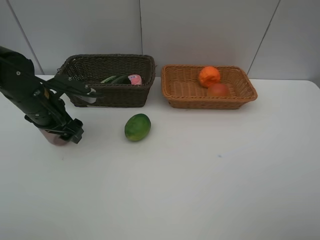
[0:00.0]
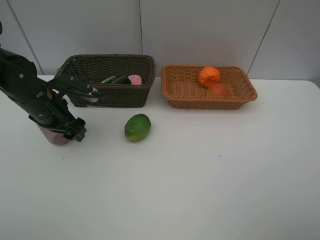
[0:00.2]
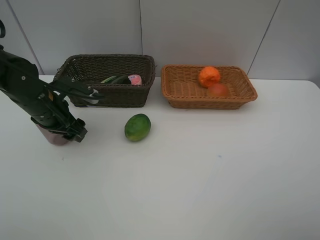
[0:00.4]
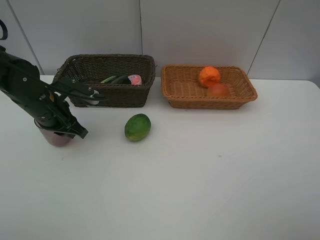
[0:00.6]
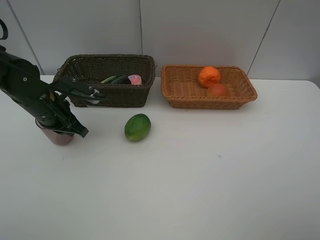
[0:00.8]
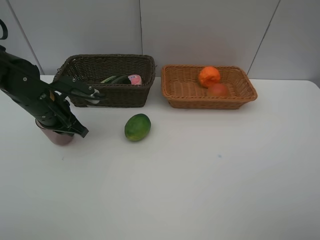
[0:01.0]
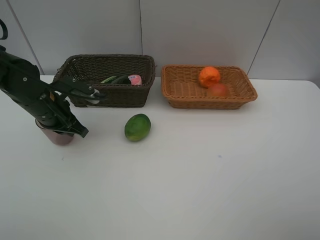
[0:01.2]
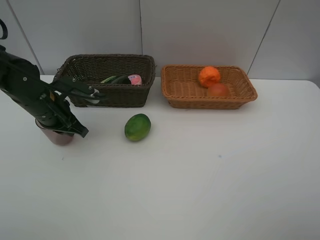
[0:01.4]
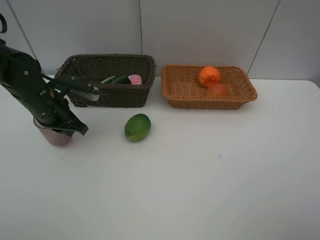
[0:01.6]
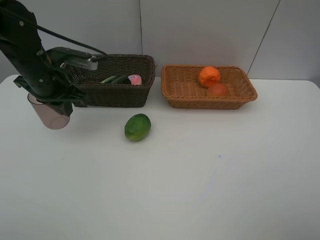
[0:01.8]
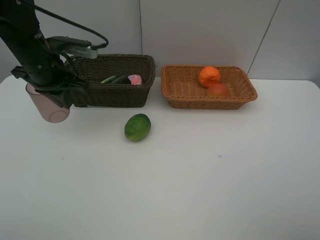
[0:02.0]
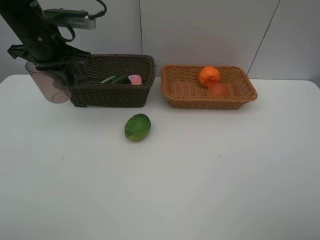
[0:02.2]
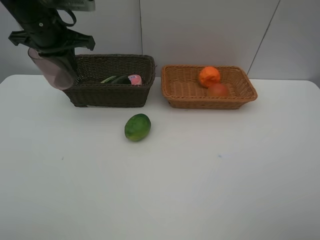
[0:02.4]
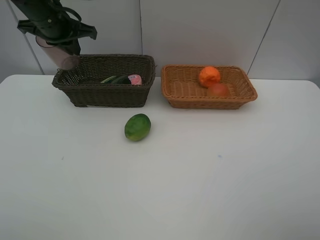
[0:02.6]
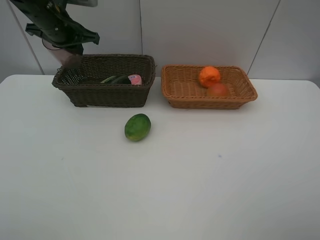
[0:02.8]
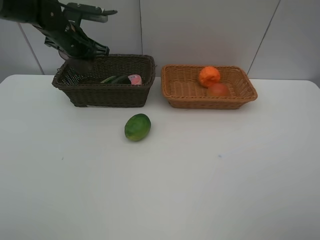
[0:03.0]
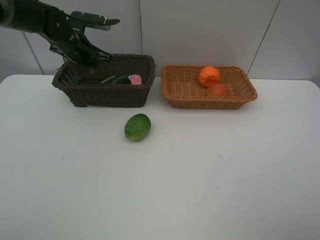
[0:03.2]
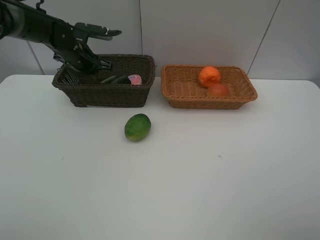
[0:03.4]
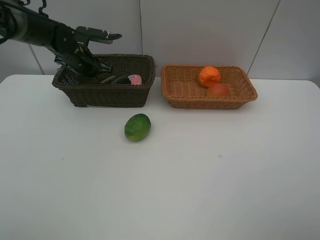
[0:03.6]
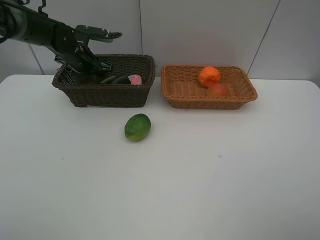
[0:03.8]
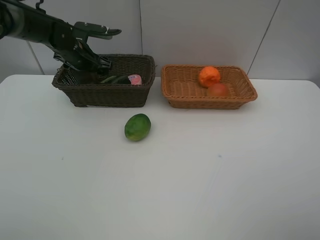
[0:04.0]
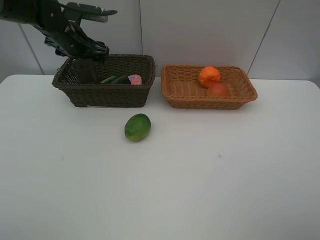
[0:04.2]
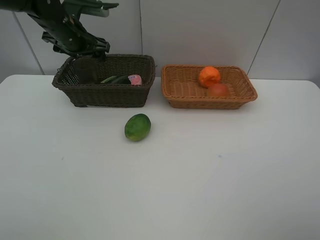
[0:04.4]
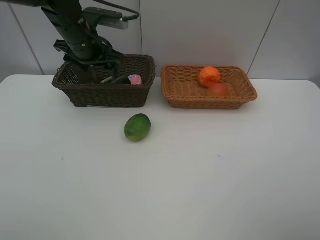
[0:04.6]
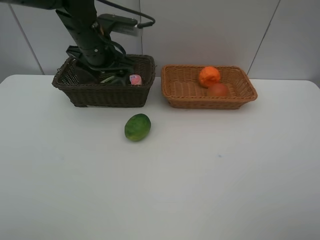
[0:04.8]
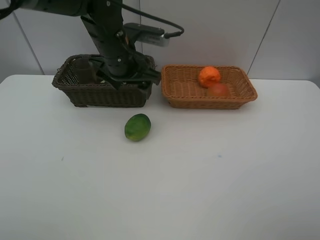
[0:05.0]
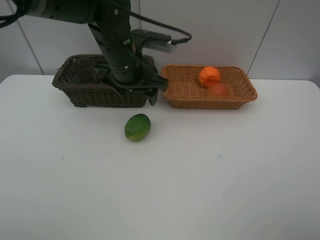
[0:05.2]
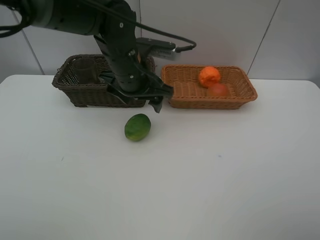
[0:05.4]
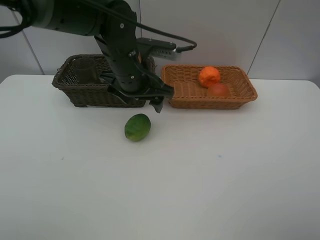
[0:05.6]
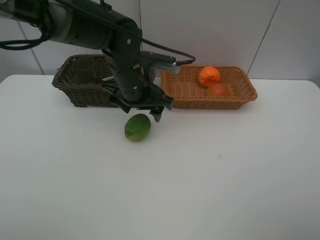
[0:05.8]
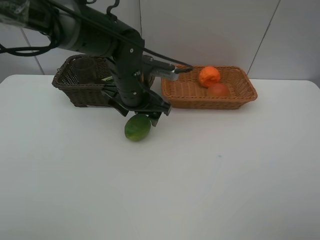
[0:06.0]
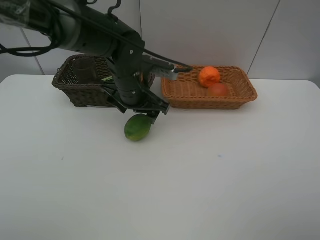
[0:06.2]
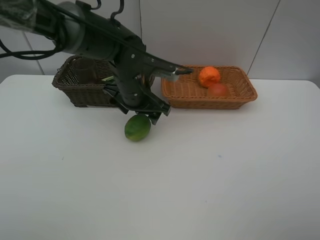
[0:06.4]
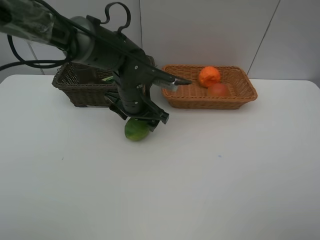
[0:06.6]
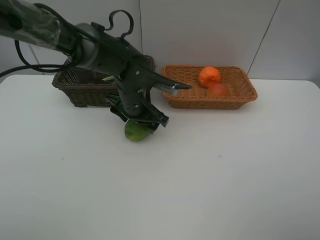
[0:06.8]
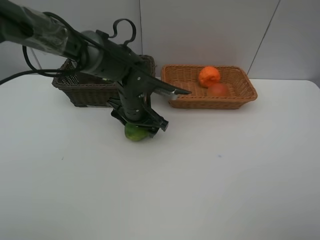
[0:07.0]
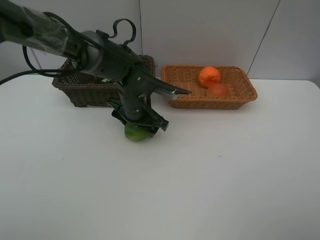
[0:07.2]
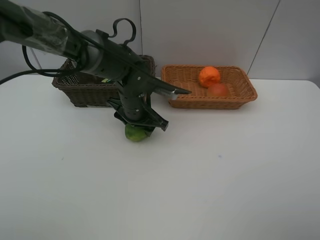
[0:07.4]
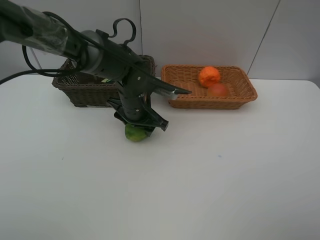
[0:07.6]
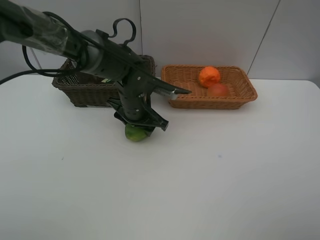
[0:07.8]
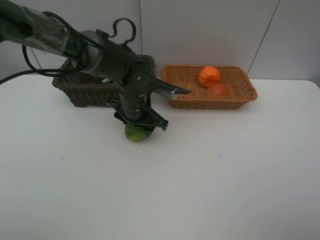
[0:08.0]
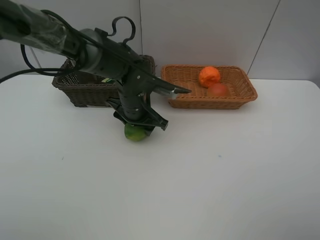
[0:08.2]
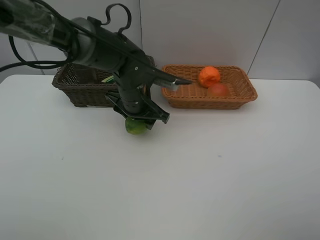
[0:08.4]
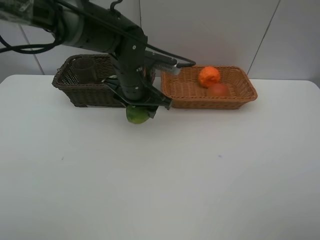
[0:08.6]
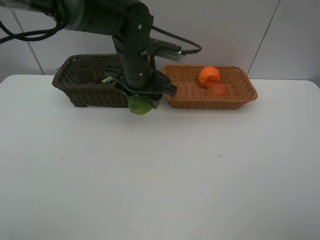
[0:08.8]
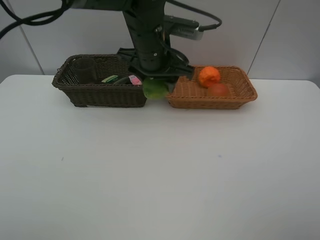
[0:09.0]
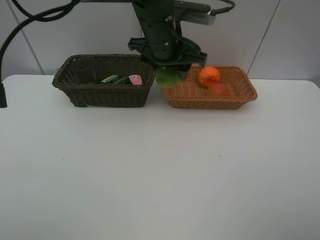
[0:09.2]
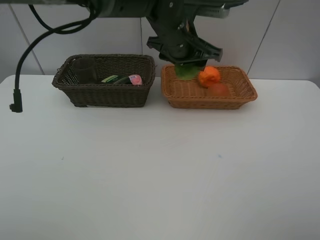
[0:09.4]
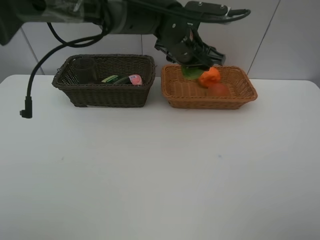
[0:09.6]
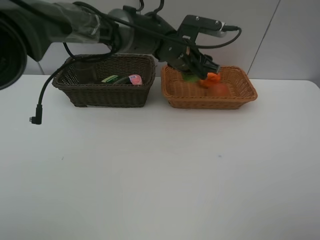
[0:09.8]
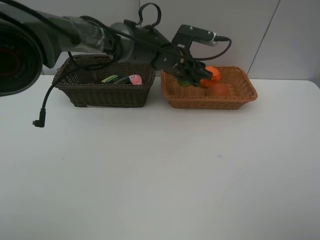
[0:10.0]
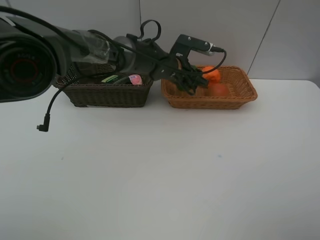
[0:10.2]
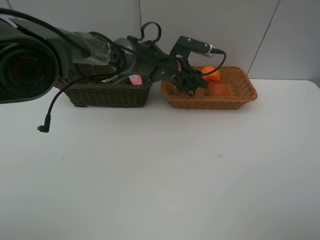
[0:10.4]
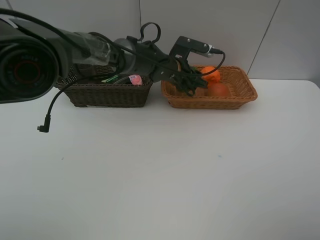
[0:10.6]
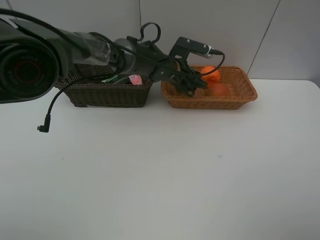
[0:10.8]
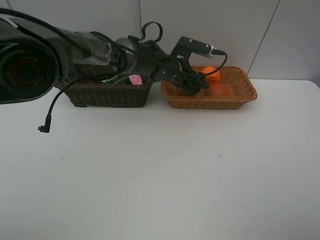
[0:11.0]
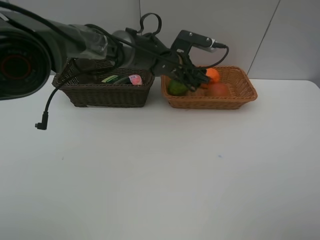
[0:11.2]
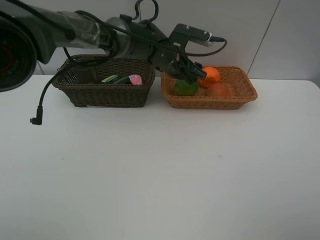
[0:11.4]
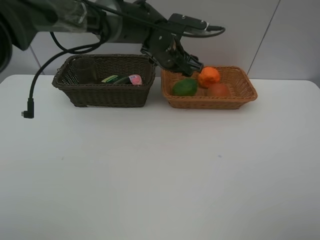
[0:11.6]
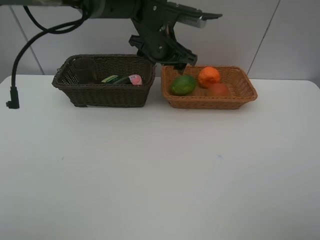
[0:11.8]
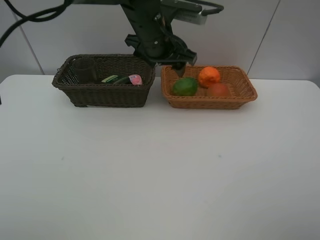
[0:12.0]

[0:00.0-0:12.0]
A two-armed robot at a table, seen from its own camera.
Task of the whole recording: place multiple objects separately in different baskets.
0:00.0 to 0:01.6: The left gripper closes its fingers.
0:01.6 to 0:03.0: The left gripper travels forward by approximately 15 cm.
0:03.0 to 0:04.4: The left gripper opens up.
0:04.4 to 0:06.0: The left gripper shifts approximately 20 cm to the right, backward and downward.
0:06.0 to 0:07.6: The left gripper moves downward, roughly 5 cm.
0:07.6 to 0:09.0: The left gripper heads upward, covering some 15 cm.
0:09.0 to 0:10.4: The left gripper heads downward and forward, covering roughly 15 cm.
0:10.4 to 0:12.0: The left gripper is displaced upward and backward by approximately 15 cm.

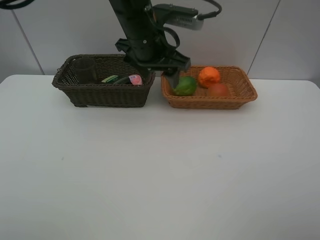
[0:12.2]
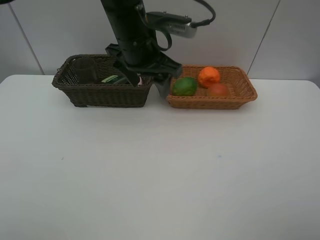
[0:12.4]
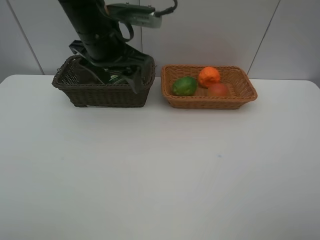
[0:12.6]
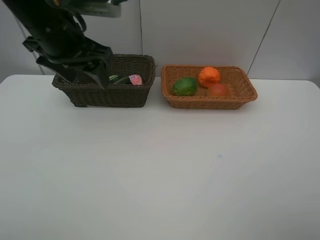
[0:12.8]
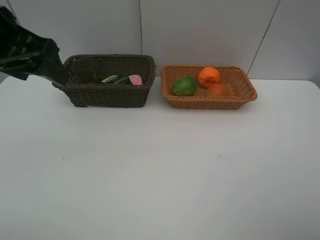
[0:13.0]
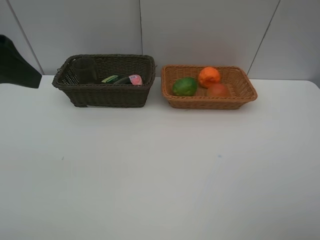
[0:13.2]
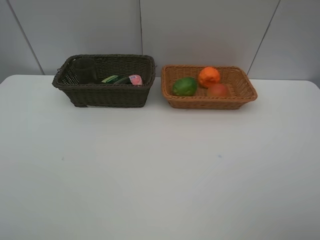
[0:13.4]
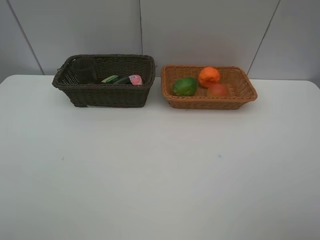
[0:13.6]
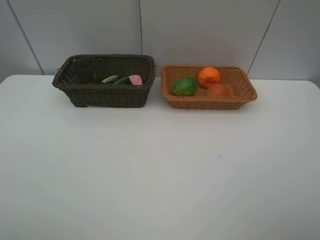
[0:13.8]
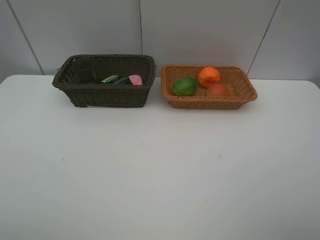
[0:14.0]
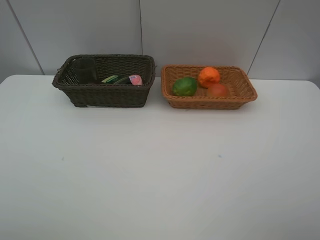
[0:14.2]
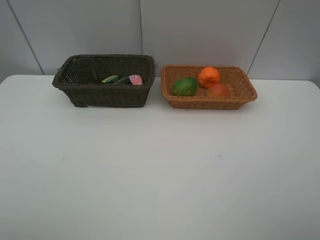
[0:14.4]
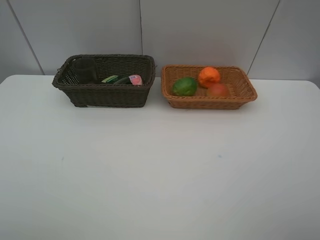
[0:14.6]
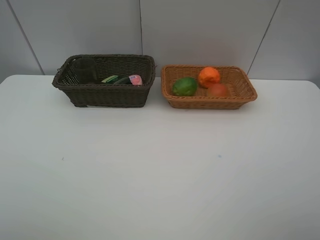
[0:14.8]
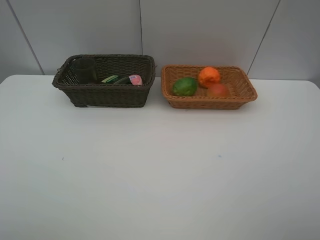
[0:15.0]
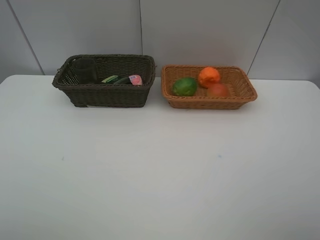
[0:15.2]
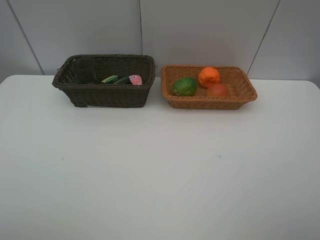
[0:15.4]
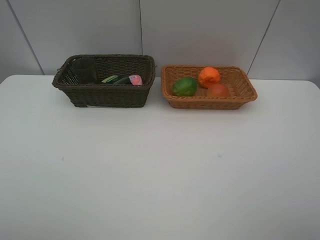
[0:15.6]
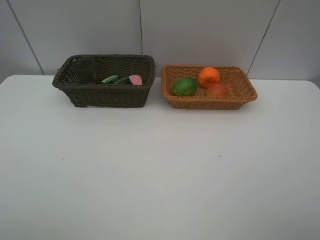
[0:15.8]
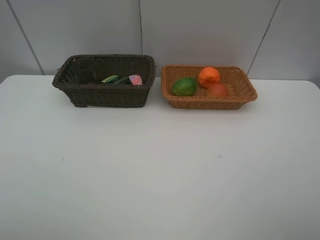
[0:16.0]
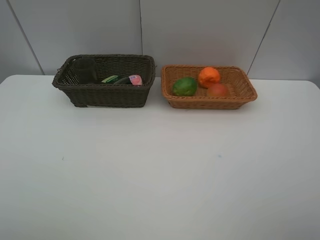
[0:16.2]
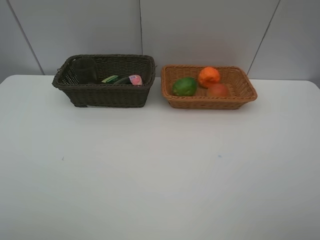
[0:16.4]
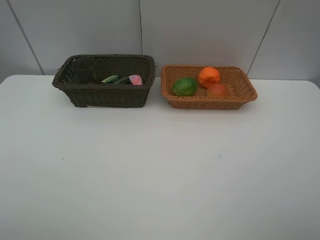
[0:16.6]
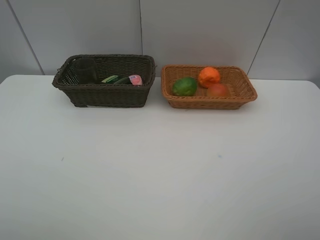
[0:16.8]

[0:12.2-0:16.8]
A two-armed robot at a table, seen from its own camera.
Task of the whole recording: place multiple objects separately in different baskets.
0:12.2 to 0:13.8: The left gripper is displaced backward and to the left by some 40 cm.
